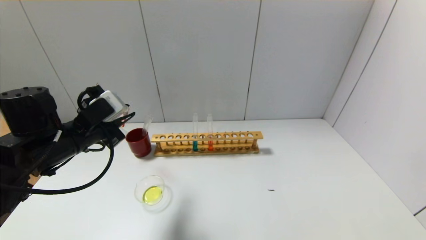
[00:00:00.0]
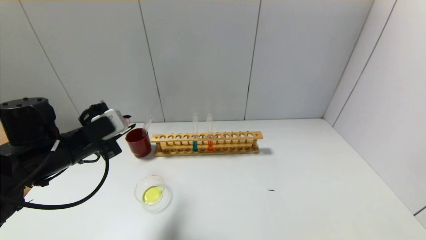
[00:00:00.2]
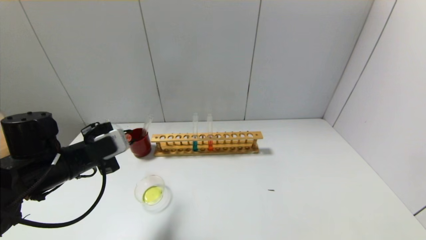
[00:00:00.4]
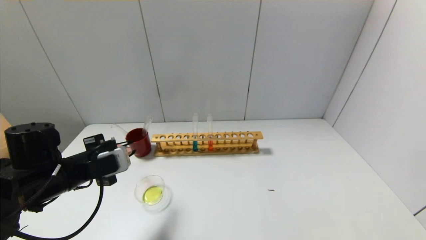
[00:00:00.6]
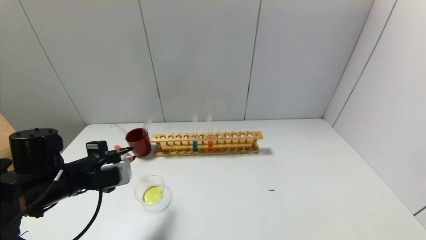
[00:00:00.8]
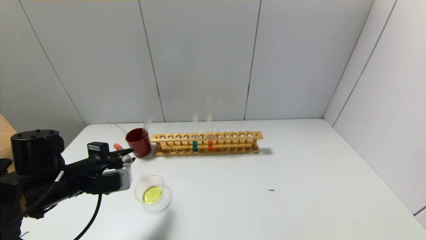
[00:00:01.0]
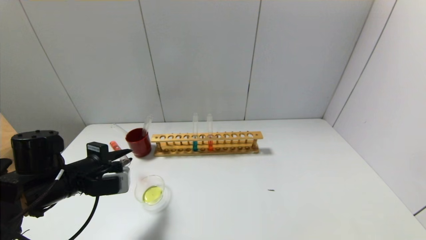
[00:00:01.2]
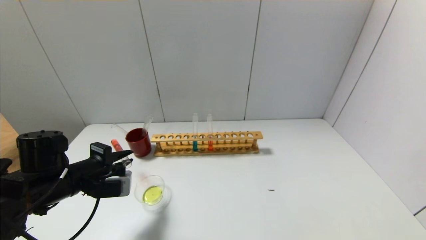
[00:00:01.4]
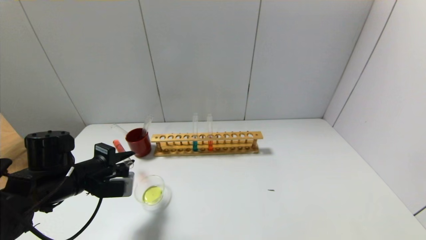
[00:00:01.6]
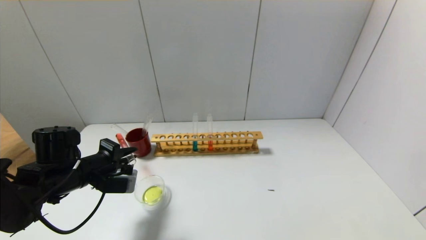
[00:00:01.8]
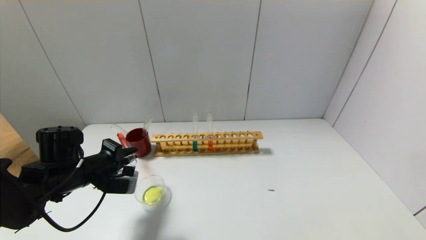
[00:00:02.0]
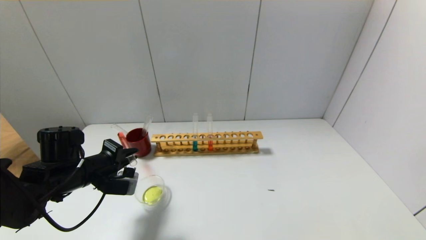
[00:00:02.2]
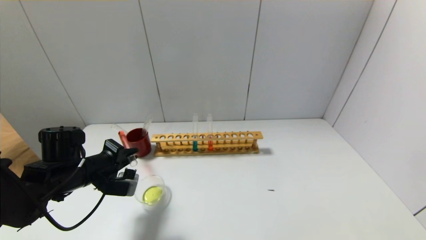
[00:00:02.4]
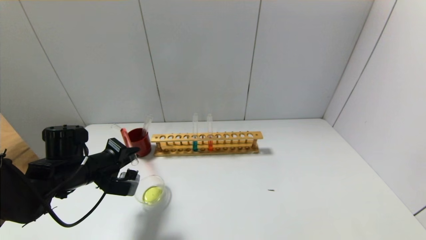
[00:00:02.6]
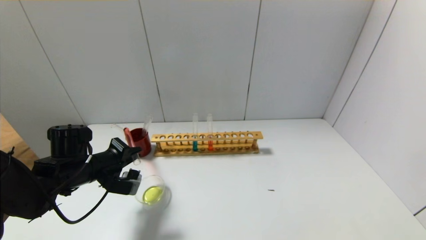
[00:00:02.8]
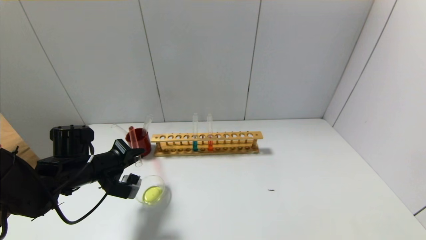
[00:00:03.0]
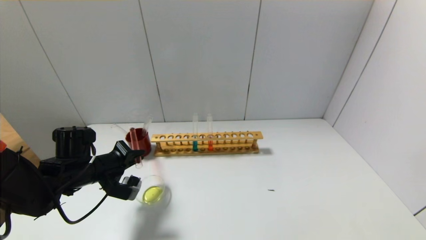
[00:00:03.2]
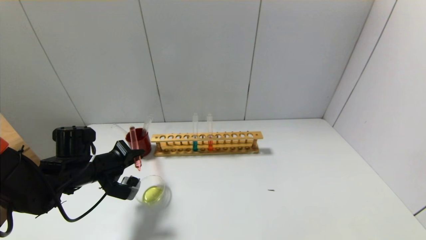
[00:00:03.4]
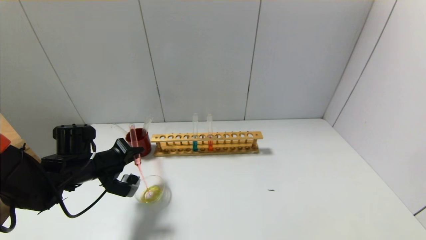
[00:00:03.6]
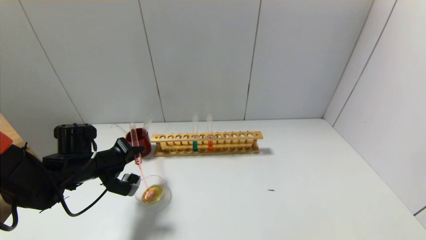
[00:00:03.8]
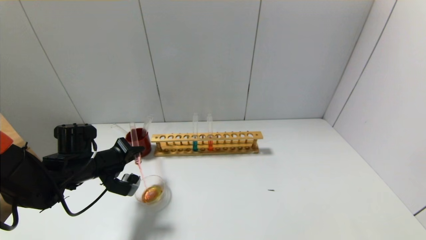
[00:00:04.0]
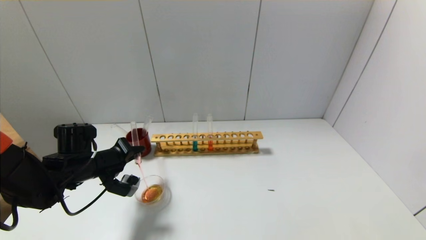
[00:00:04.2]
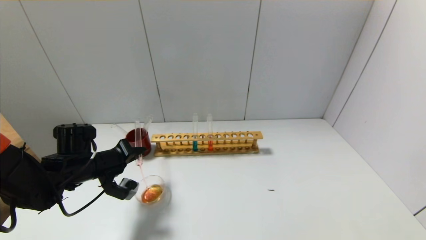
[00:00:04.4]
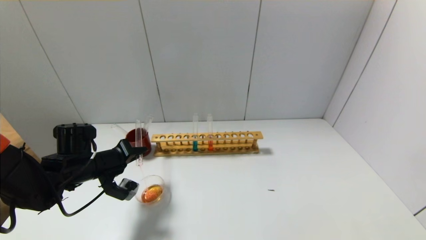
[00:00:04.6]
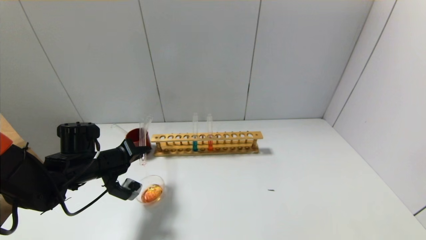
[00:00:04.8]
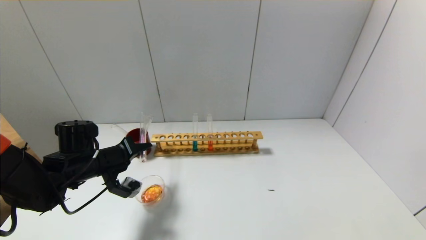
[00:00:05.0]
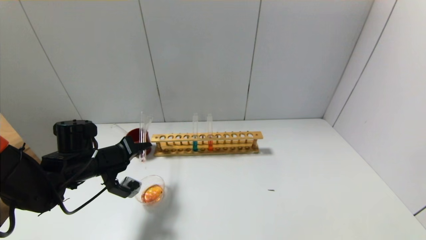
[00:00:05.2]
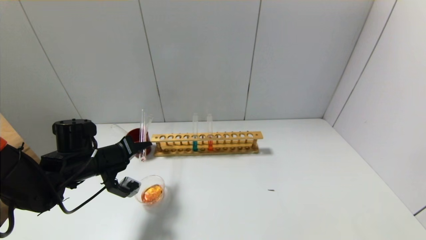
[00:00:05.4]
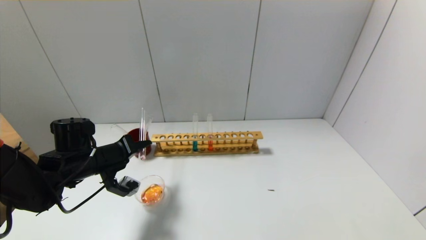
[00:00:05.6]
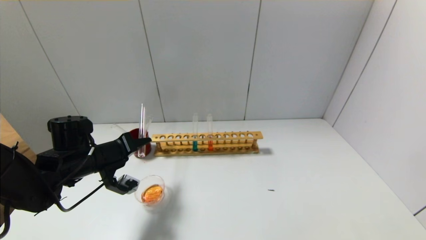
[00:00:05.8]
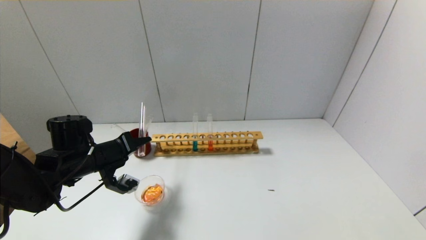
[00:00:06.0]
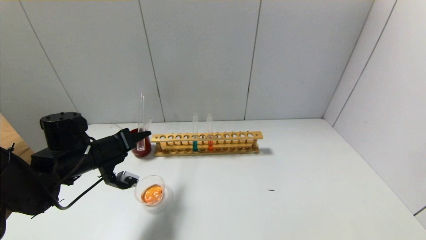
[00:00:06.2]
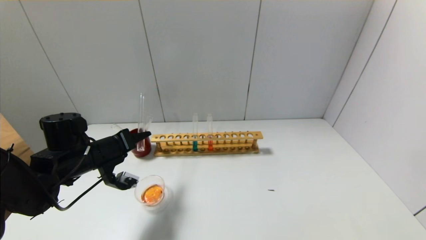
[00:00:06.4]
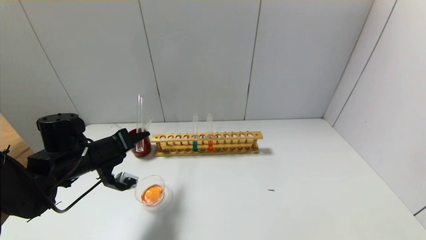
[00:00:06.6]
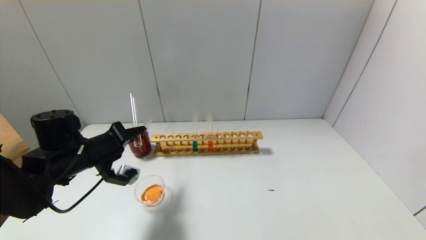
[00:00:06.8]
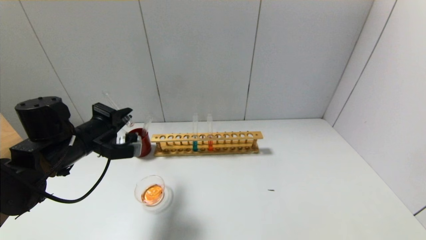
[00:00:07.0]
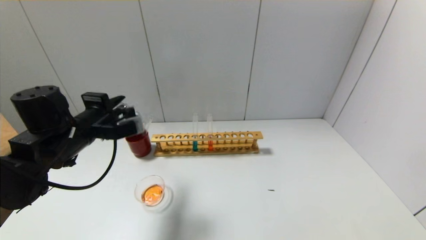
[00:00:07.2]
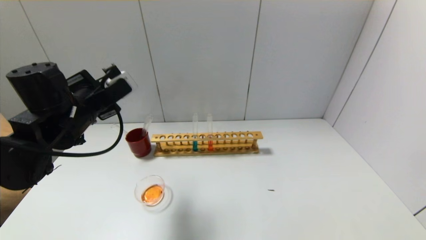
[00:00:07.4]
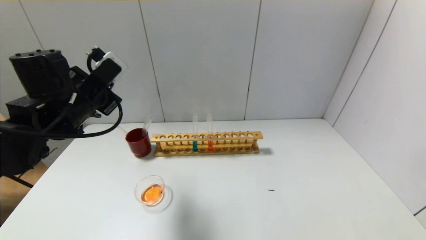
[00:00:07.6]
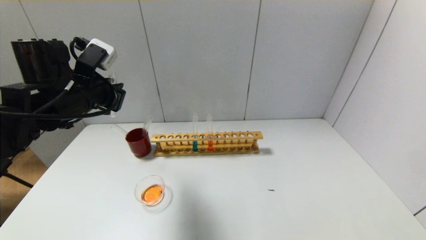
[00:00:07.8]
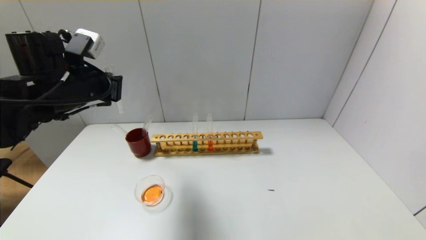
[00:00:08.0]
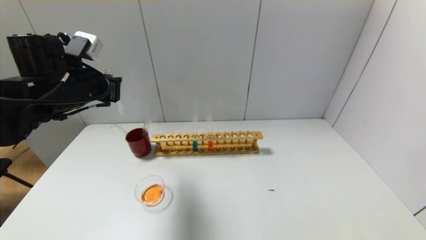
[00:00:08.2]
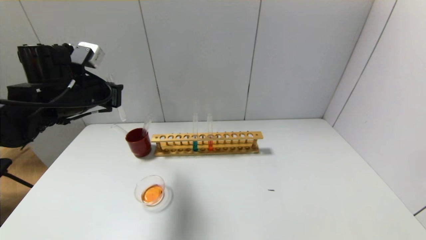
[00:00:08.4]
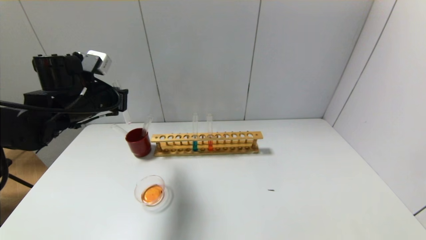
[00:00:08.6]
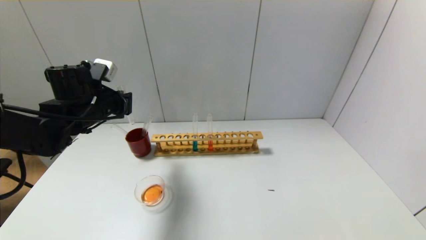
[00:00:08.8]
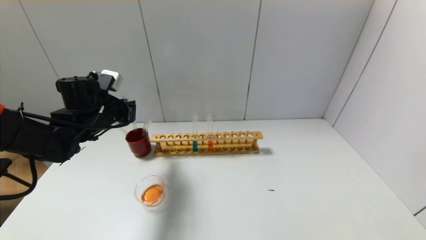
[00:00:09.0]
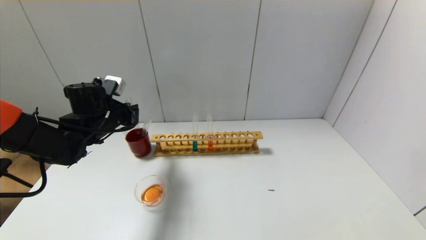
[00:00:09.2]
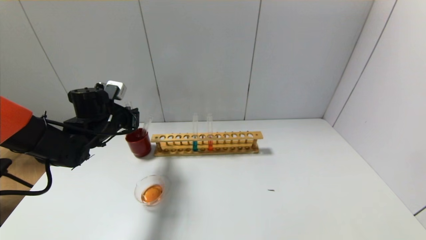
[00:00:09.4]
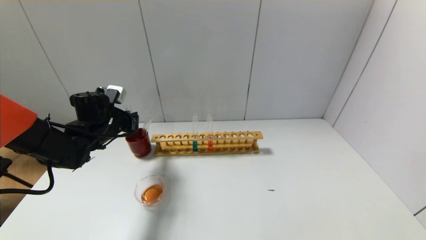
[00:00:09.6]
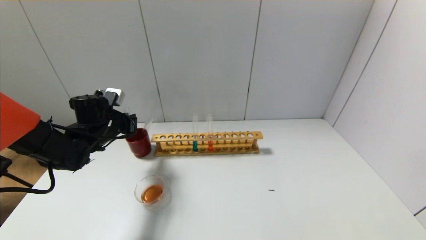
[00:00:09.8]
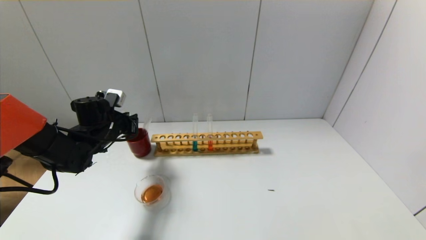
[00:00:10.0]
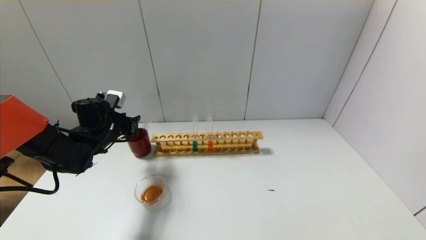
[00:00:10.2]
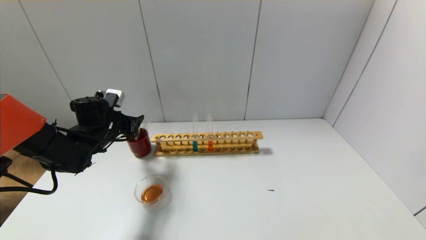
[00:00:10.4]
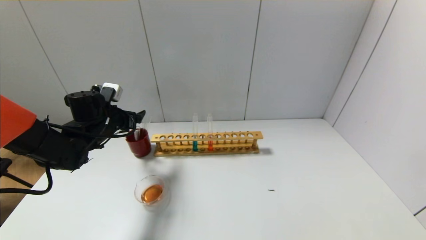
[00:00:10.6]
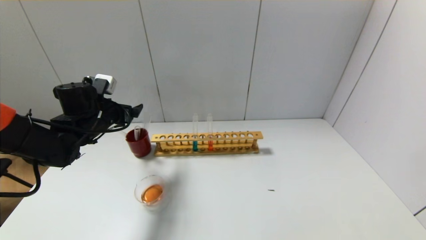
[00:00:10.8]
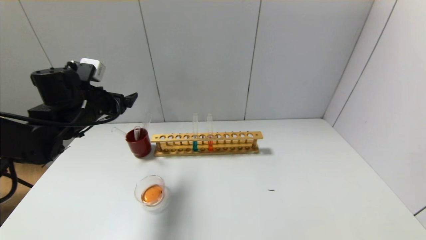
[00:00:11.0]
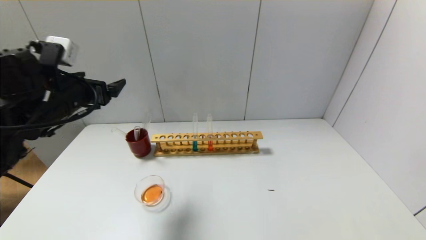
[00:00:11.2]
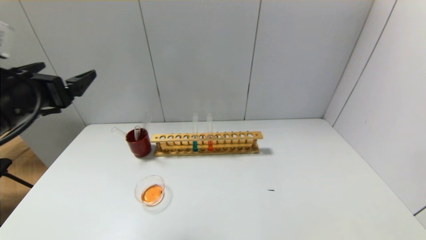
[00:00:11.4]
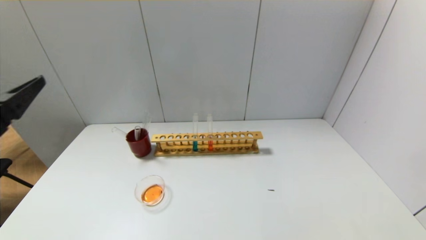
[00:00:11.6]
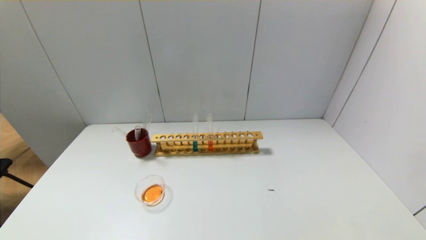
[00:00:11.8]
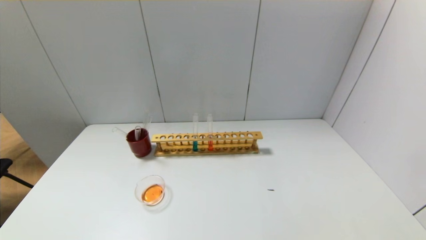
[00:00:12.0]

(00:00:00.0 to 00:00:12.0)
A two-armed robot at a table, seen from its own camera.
Step, 00:00:00.0 - 00:00:06.8: Pour the red reagent into the graduated cylinder with the left gripper.
Step, 00:00:07.0 - 00:00:10.0: Place the test tube into the brown cup with the left gripper.
00:00:00.0 - 00:00:01.6: The left gripper travels downward by approximately 10 cm.
00:00:03.0 - 00:00:04.4: The grippers make only small movements.
00:00:04.4 - 00:00:06.0: The grippers stay close to where they were, moving slightly.
00:00:06.0 - 00:00:07.6: The left gripper travels upward by approximately 15 cm.
00:00:07.6 - 00:00:09.0: The left gripper goes some 10 cm downward and forward.
00:00:09.0 - 00:00:10.4: The left gripper ends up roughly 5 cm from where it was, and opens.
00:00:10.4 - 00:00:12.0: The left gripper goes roughly 40 cm backward.

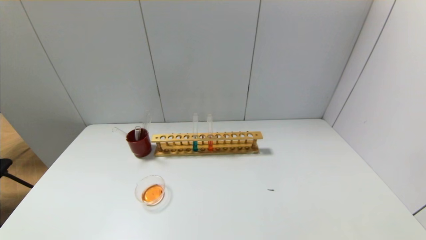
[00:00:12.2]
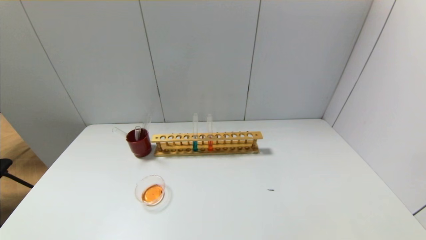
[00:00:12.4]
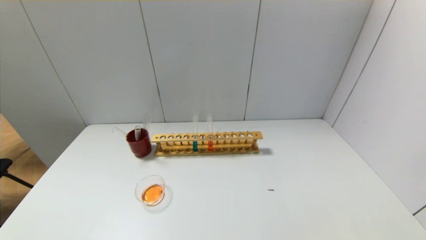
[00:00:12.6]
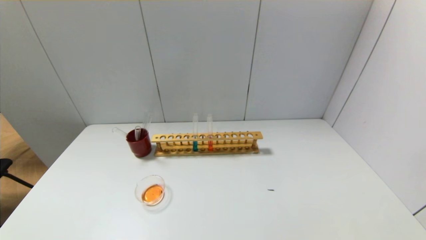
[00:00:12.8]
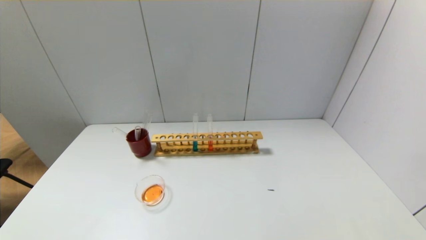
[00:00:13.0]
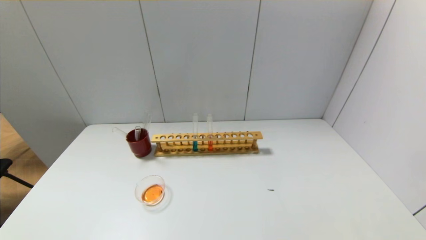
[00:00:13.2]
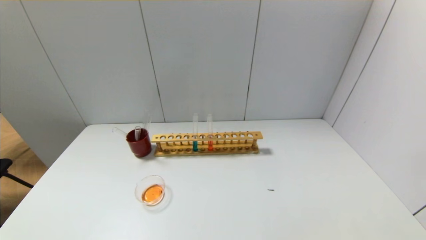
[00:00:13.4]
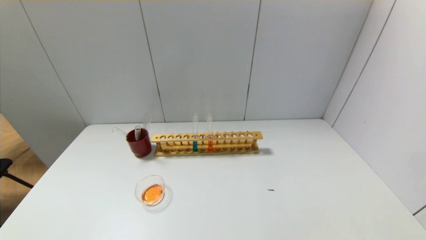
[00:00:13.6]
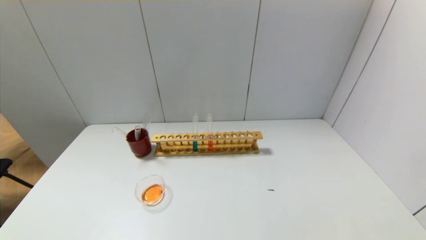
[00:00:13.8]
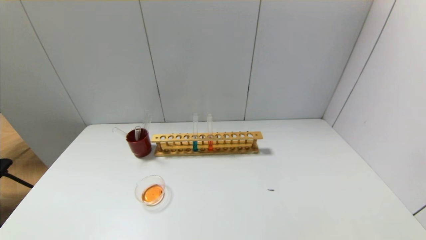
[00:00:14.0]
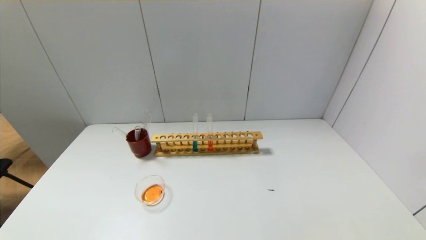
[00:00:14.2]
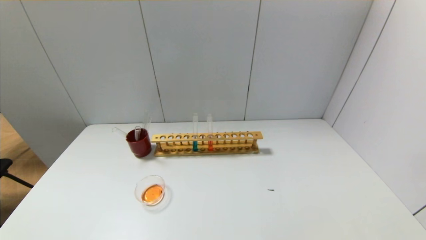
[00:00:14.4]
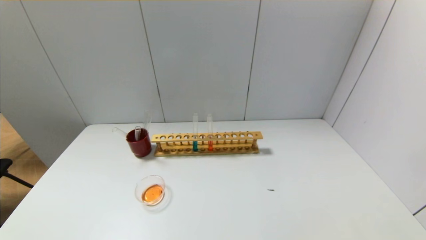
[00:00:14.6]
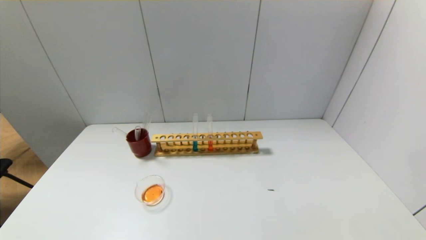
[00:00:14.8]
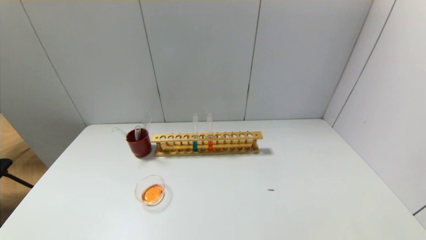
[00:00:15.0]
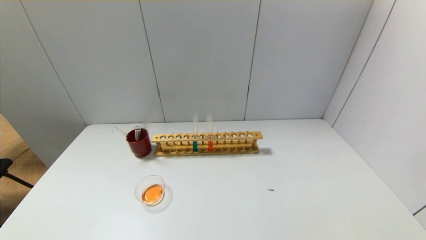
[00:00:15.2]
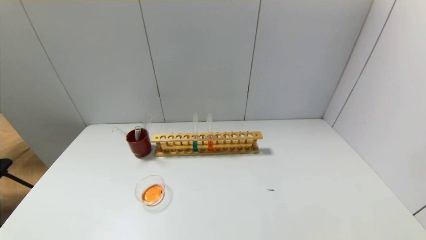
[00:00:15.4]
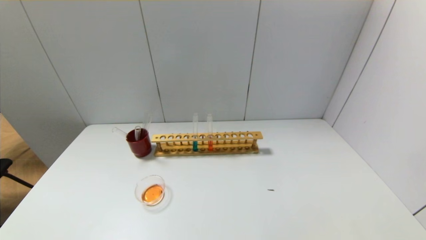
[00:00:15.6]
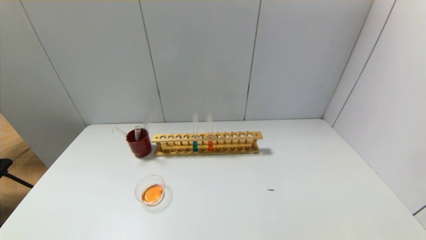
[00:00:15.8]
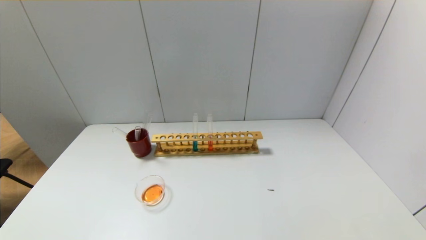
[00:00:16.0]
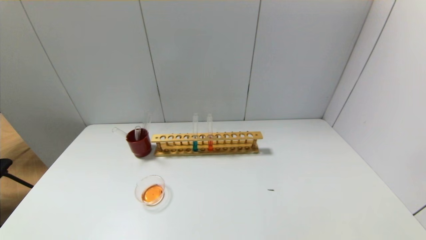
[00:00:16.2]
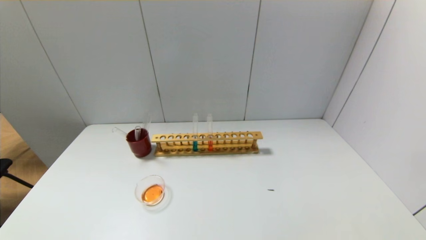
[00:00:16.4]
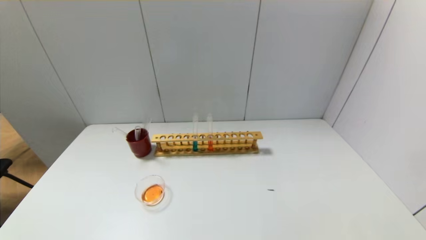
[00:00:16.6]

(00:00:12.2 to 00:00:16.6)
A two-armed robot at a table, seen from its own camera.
00:00:13.6 - 00:00:16.6: Neither gripper changes place.
